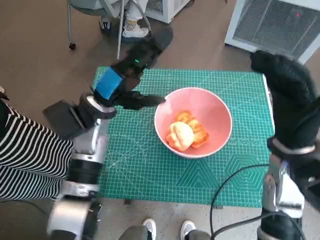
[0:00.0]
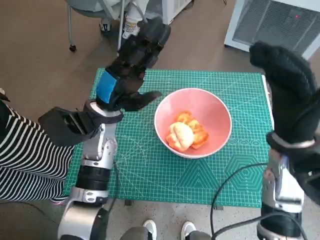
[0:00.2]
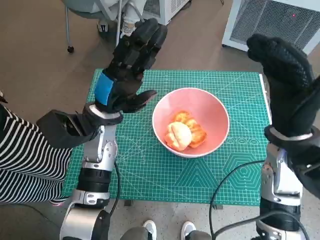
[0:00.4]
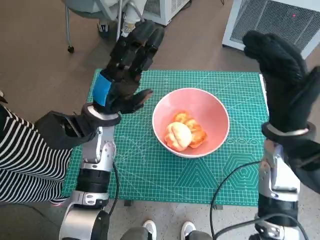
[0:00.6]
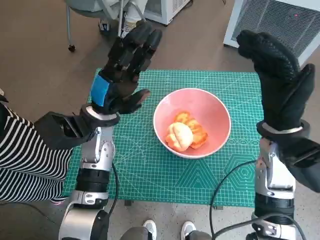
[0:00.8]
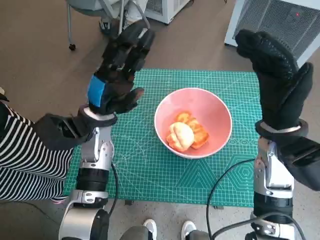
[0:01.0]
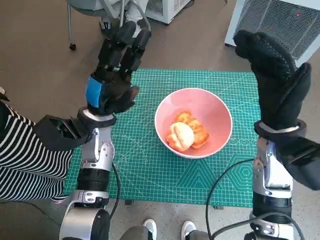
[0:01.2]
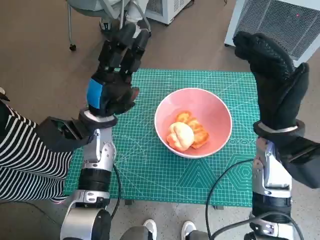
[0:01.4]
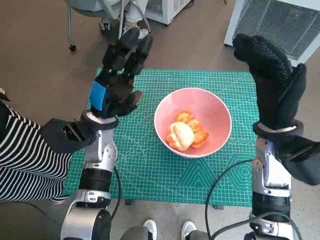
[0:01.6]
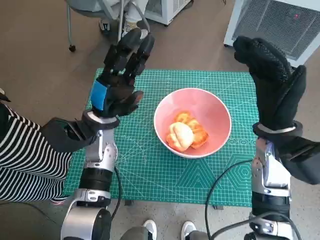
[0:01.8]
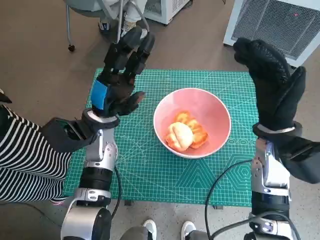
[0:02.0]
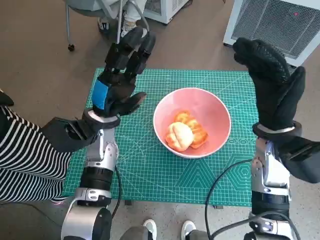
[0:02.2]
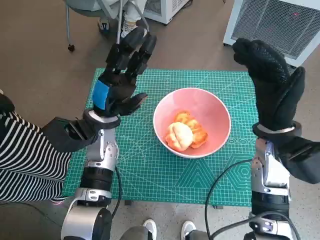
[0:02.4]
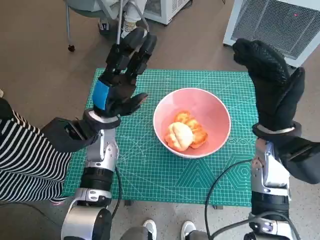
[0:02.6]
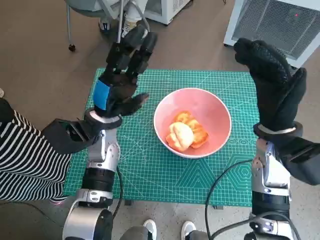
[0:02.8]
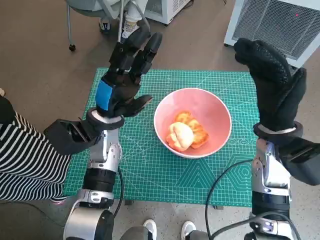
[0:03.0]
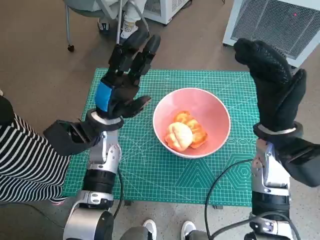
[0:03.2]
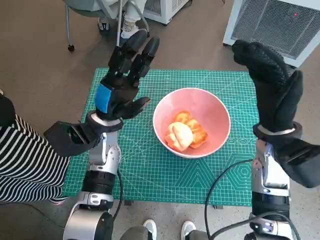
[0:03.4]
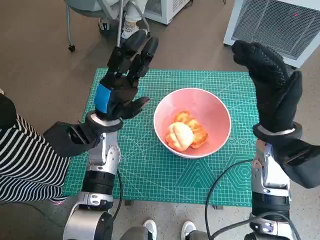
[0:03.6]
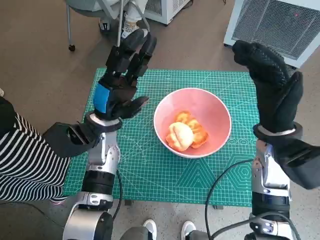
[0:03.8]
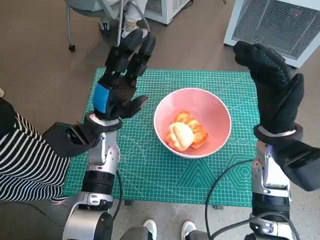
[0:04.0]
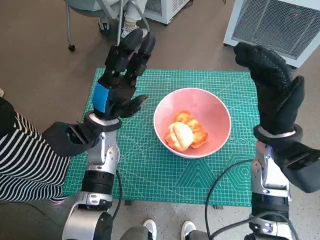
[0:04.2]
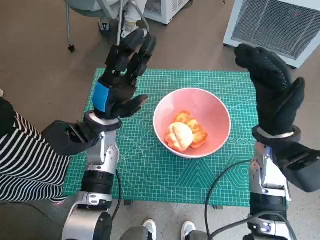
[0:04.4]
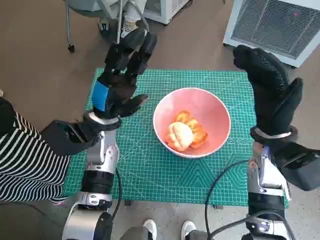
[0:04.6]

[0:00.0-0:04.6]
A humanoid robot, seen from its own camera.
Task of the whole recording: Push the bowl into the center of the table and put the bread into the bowl.
1.6 to 3.0 s: Both hands stay put.
3.0 to 4.6 s: Neither hand changes place.

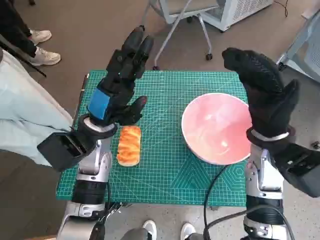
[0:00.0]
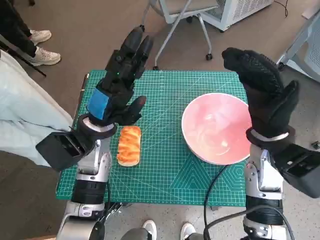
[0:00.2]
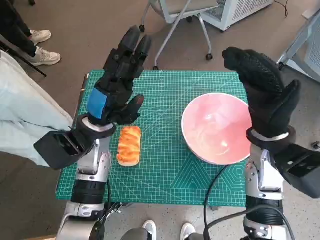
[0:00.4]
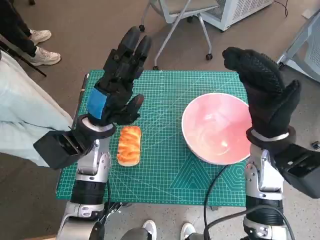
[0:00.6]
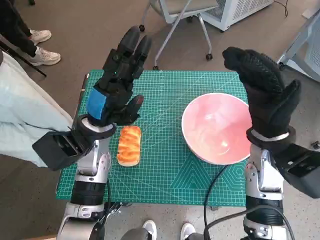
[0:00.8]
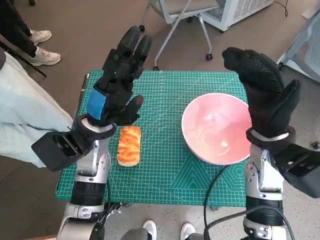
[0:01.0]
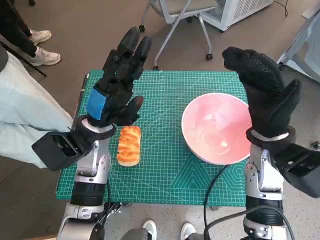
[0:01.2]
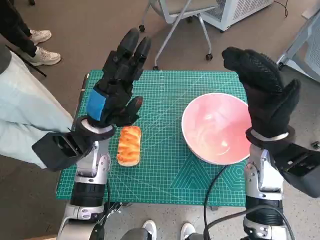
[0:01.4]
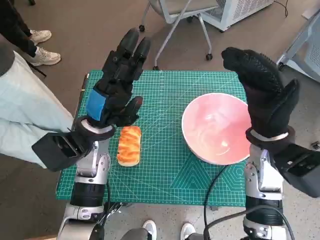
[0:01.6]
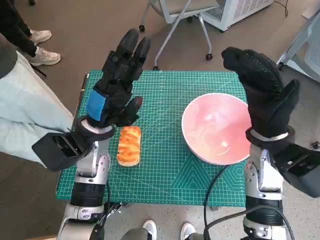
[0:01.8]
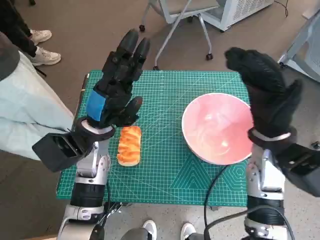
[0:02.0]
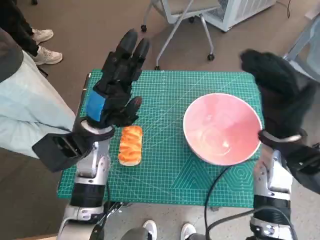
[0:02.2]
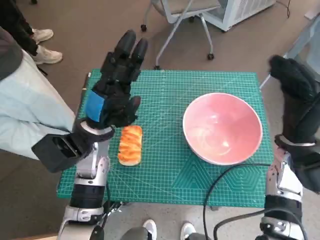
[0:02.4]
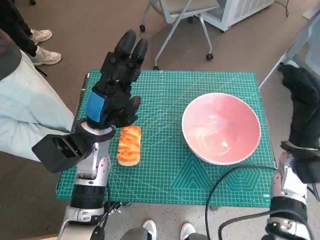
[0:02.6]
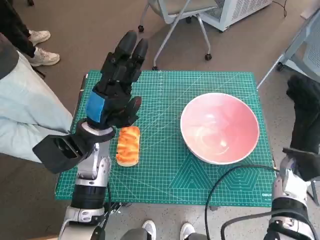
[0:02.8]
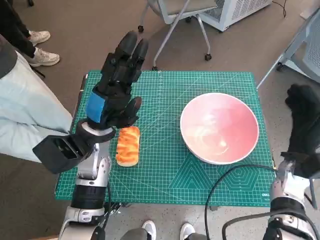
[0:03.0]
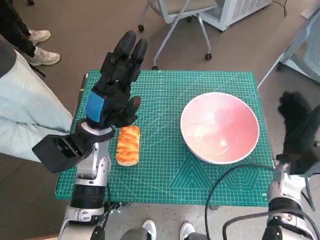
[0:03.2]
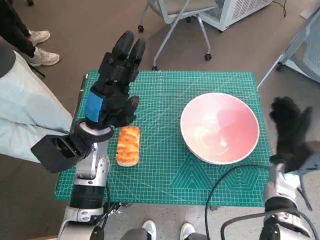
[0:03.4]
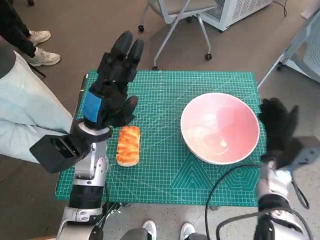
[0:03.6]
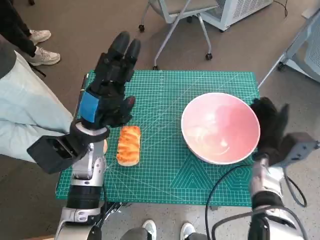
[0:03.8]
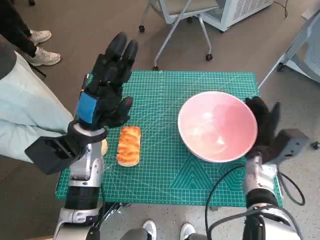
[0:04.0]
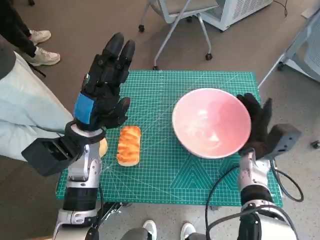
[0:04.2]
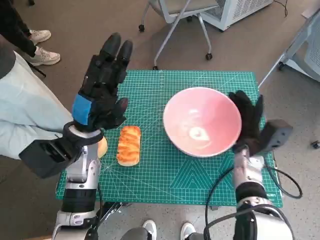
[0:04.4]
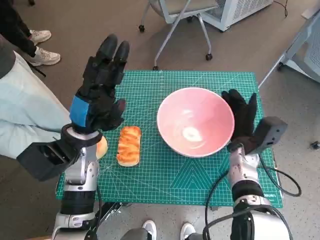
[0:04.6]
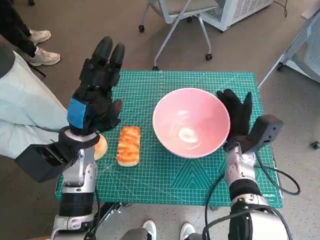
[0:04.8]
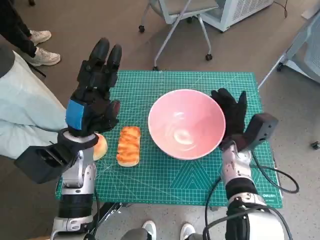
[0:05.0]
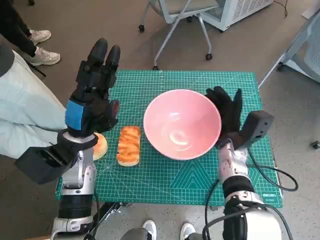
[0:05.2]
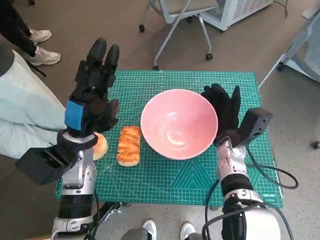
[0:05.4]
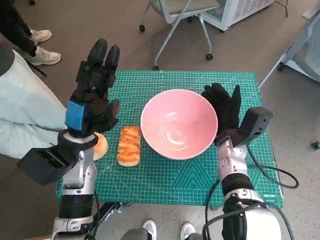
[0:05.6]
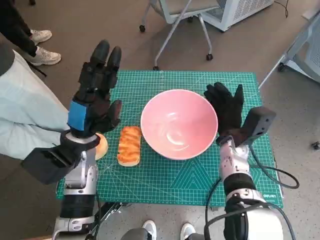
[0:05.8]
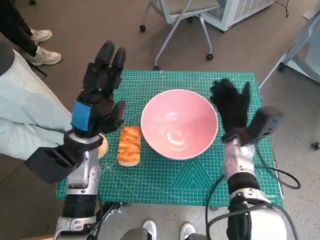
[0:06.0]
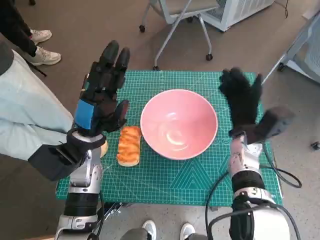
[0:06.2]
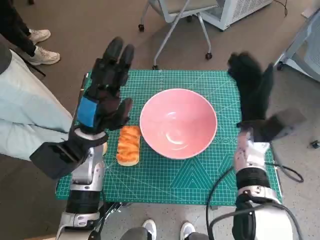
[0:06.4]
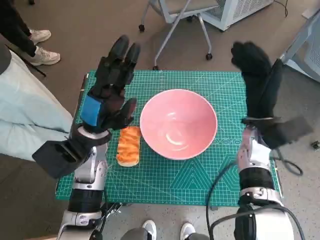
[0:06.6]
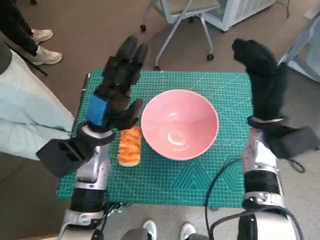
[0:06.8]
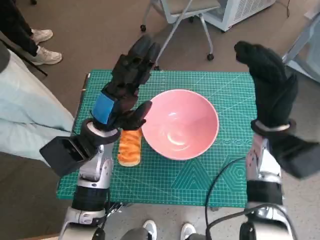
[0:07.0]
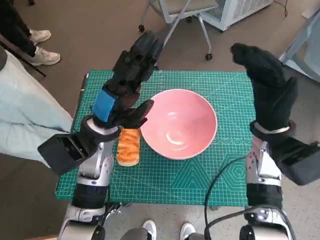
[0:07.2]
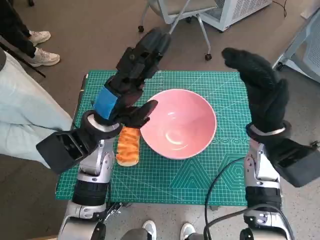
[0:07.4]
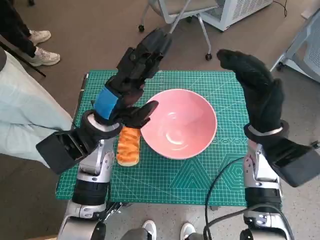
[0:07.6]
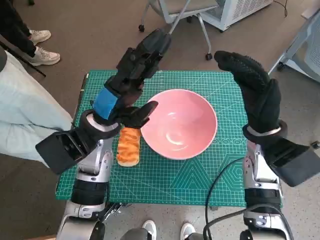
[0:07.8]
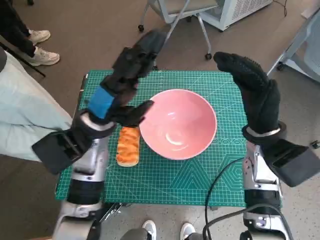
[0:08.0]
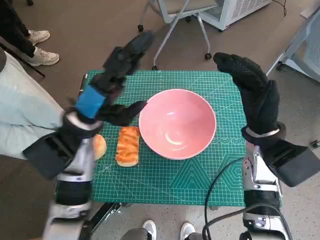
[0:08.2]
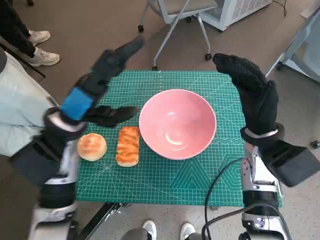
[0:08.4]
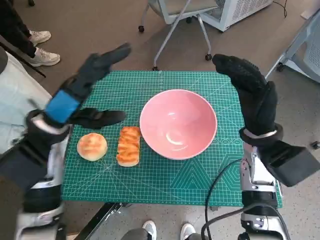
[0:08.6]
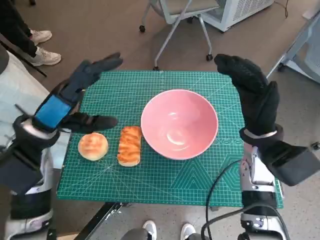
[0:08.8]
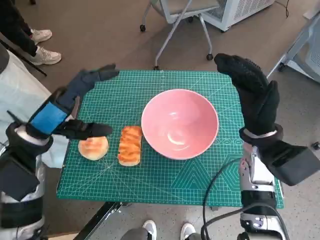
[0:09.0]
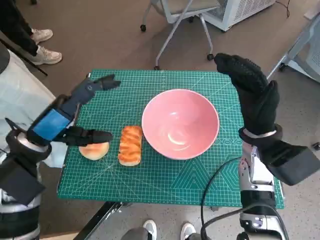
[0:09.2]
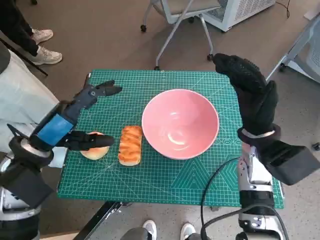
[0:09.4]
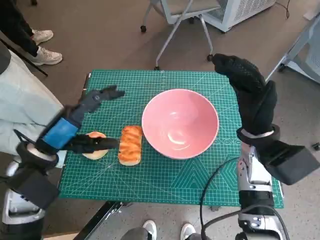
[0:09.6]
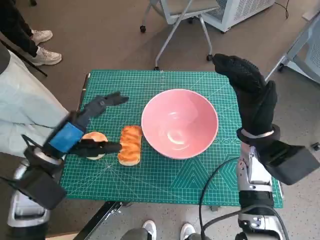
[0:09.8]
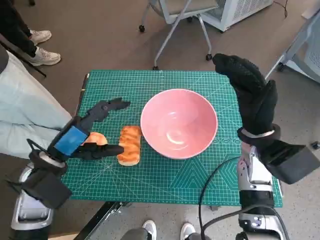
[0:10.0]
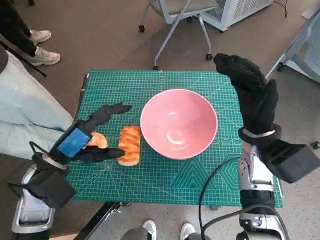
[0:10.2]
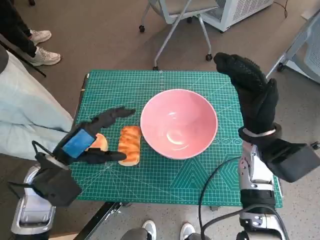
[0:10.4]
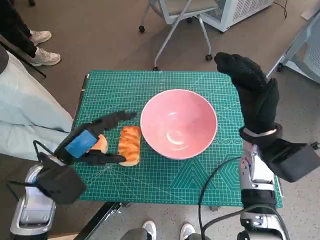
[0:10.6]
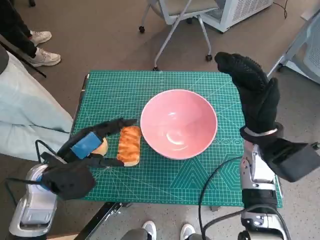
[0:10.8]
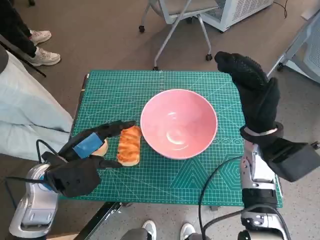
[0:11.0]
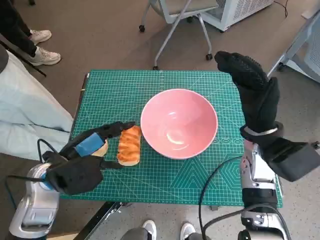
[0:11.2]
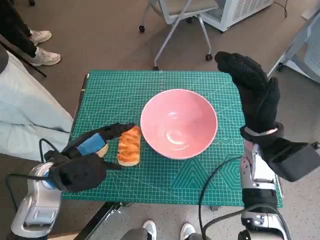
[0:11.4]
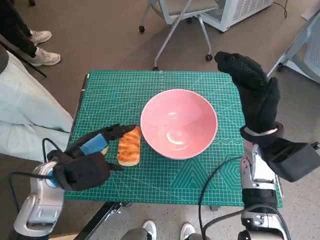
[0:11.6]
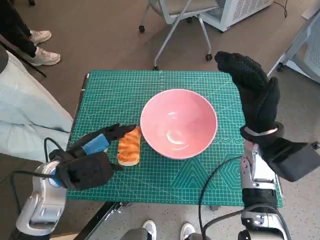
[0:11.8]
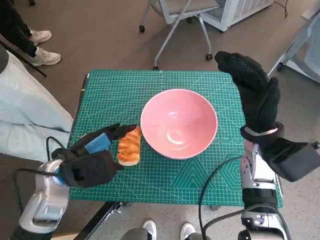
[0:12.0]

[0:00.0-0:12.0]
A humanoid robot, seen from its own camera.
Task of the whole recording: Push the bowl into the center of the table and put the bread into the bowl.
Step, 0.0 to 6.2 s: Move the pink bowl to the center of table with right hand.
1.6 to 3.0 s: The right hand moves downward and to the right, roughly 15 cm.
3.0 to 4.4 s: The right hand goes roughly 10 cm to the left.
6.0 to 7.6 s: The left hand changes place by some 5 cm. Meanwhile the right hand moves upward, some 10 cm.
7.6 to 9.0 s: The left hand travels to the left by some 10 cm.
9.0 to 10.4 s: The left hand goes roughly 5 cm downward.

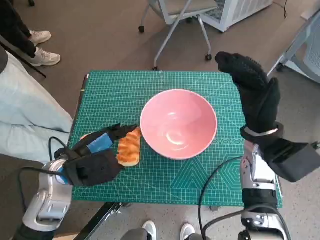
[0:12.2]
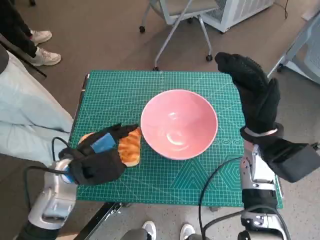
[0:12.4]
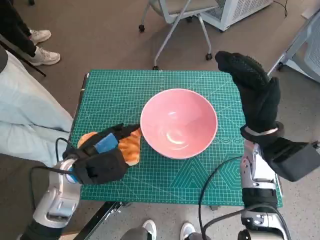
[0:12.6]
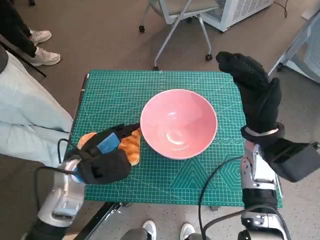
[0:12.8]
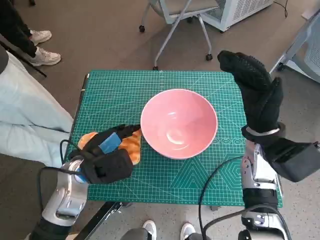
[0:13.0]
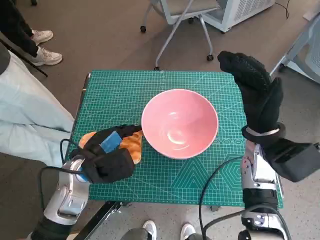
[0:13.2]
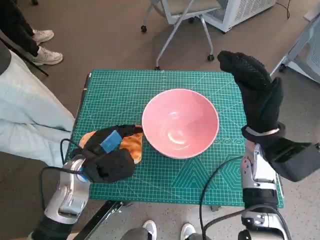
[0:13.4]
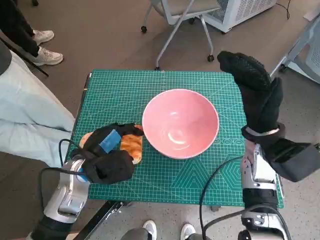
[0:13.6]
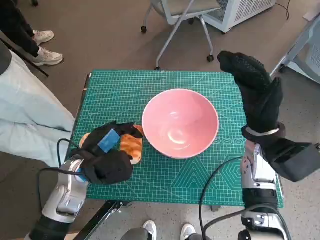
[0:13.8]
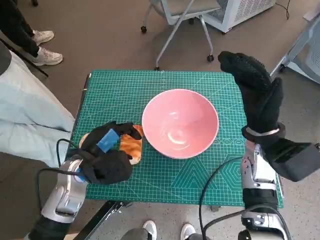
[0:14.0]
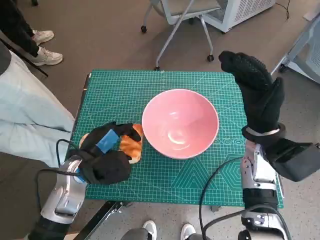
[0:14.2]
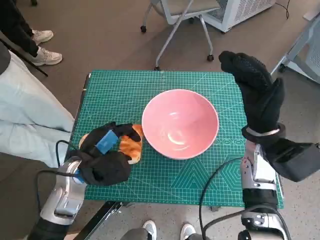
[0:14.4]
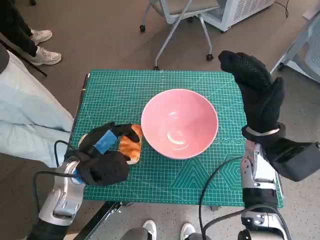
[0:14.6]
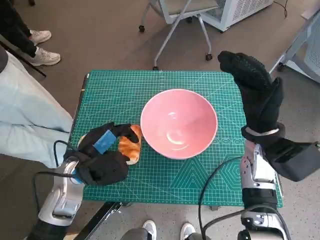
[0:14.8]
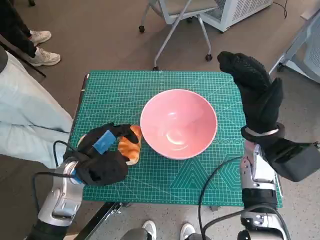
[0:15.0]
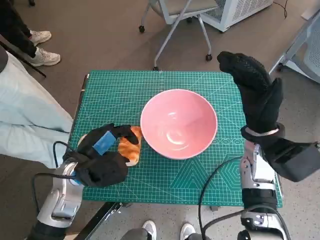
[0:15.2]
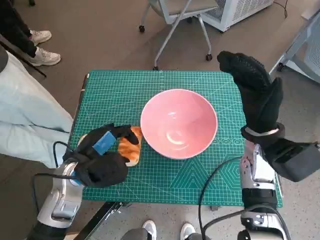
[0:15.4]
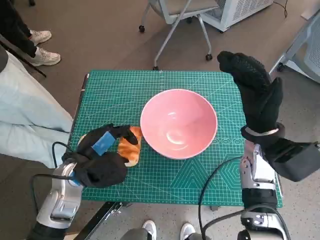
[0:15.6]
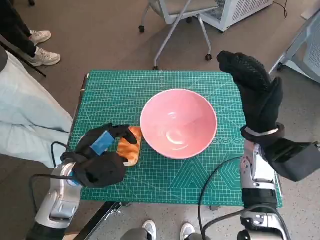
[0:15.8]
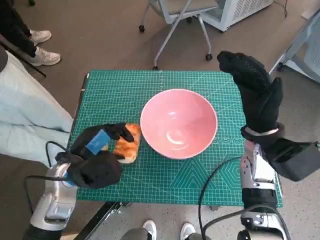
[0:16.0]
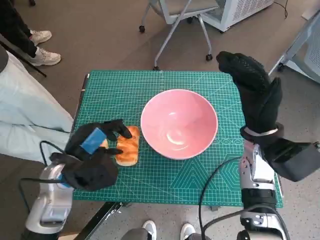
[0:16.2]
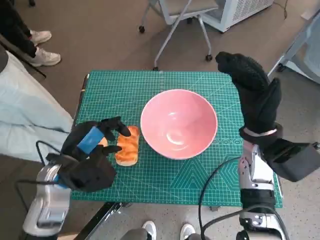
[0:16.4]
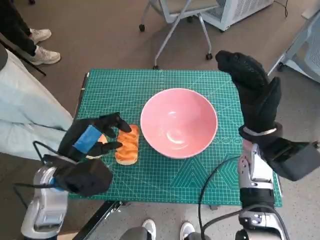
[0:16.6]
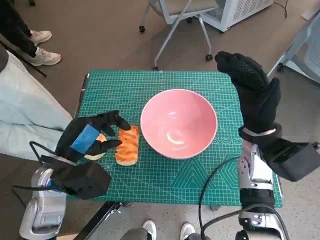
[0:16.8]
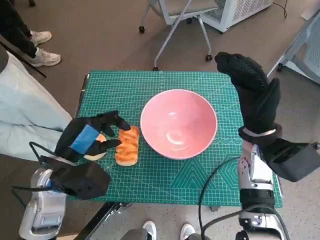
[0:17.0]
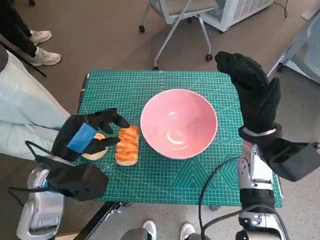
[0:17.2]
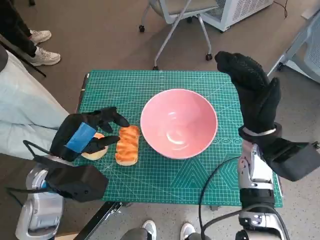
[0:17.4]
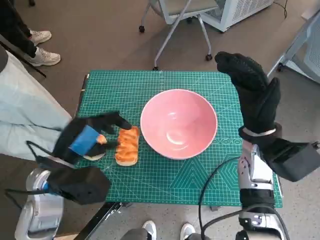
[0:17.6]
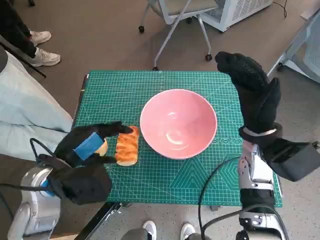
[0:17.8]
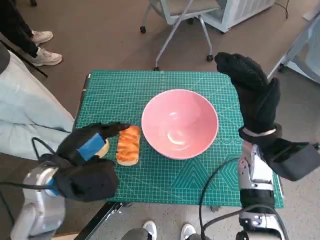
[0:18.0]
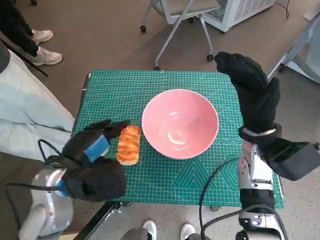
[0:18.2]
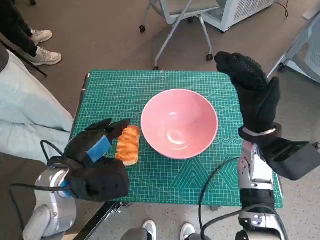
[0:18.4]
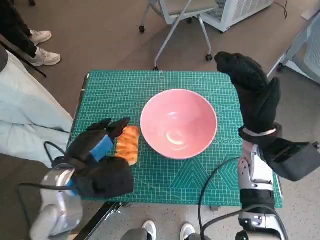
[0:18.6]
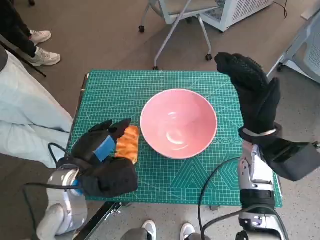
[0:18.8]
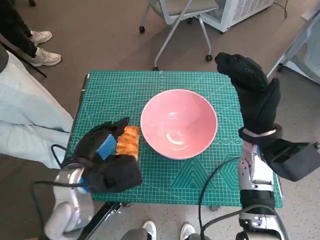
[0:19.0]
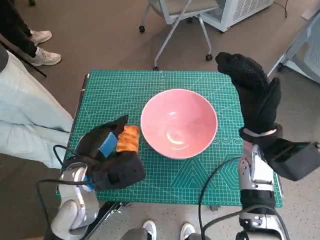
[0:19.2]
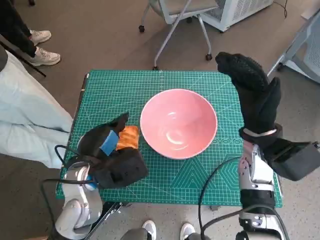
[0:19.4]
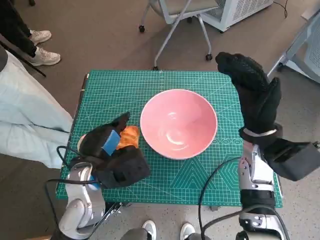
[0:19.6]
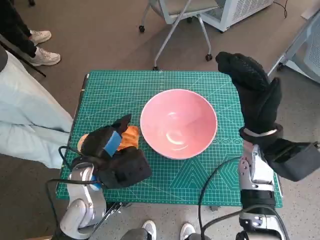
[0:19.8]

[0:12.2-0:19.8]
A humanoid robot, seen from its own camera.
Task of the whole recording: Push the bowl into the center of the table and put the bread into the bowl.
Step, 12.2 to 15.8 s: Grasp the long bread with left hand.
12.2 to 13.8 s: There are only small adjustments of the hands.
13.8 to 15.2 s: Both hands stay put.
15.2 to 16.8 s: The hands stay close to where they were, moving slightly.
18.2 to 19.8 s: The left hand moves approximately 5 cm.
